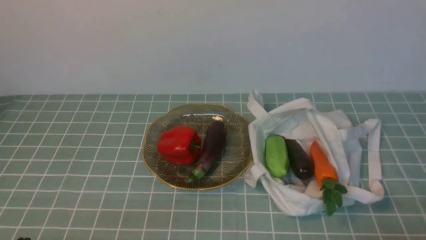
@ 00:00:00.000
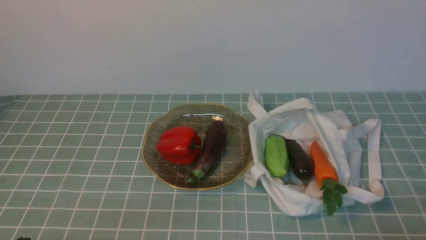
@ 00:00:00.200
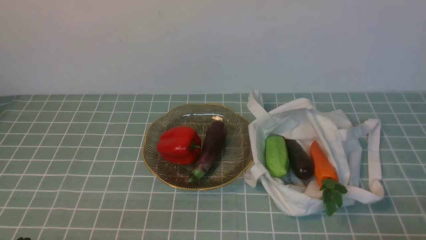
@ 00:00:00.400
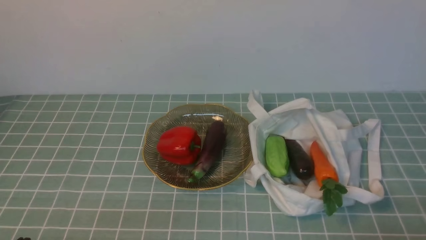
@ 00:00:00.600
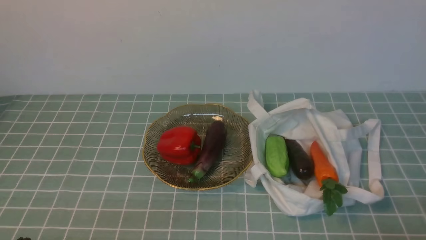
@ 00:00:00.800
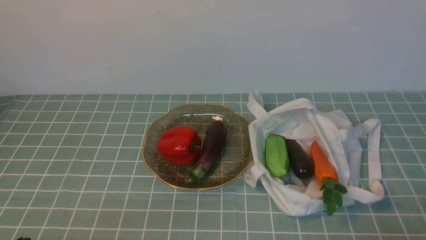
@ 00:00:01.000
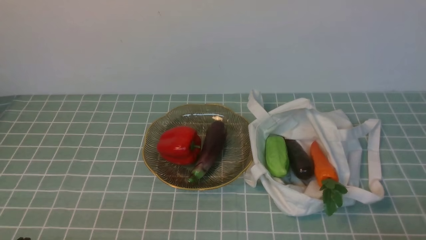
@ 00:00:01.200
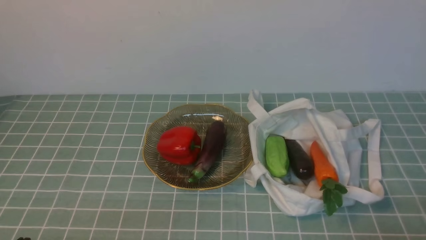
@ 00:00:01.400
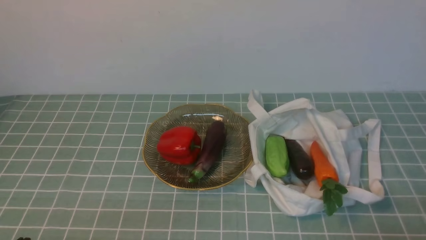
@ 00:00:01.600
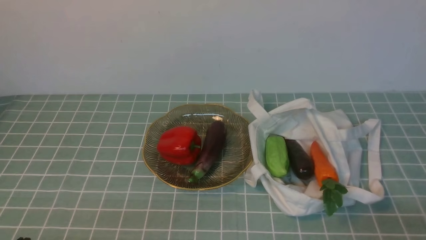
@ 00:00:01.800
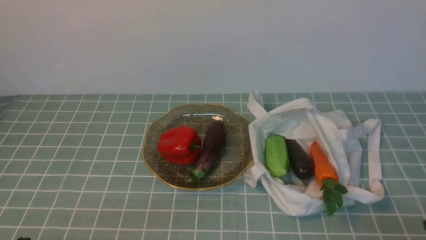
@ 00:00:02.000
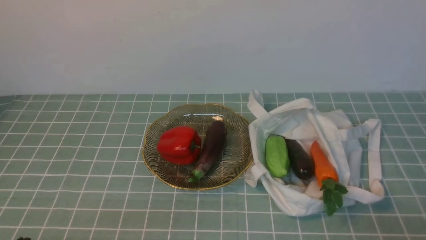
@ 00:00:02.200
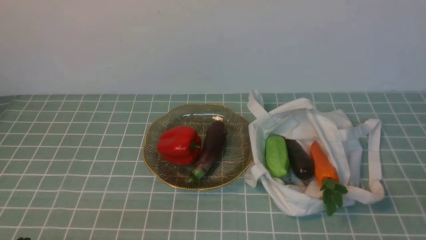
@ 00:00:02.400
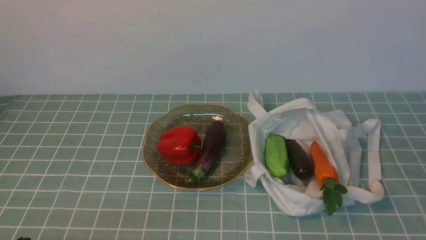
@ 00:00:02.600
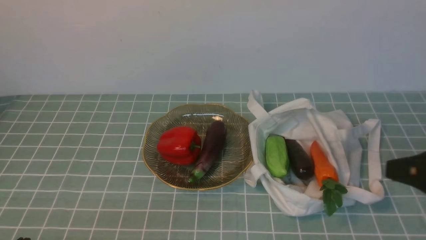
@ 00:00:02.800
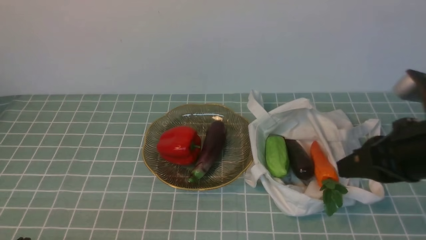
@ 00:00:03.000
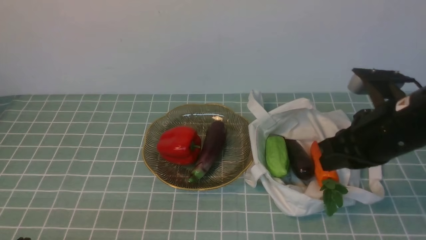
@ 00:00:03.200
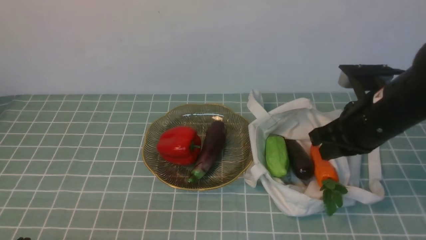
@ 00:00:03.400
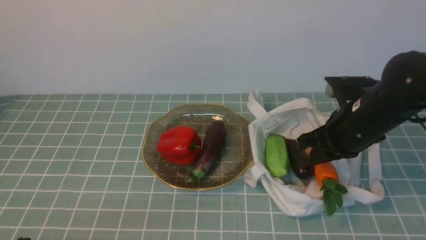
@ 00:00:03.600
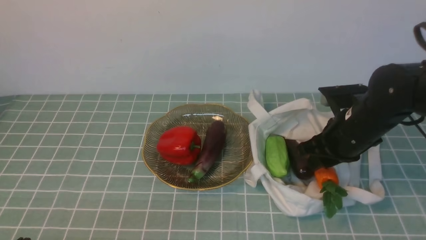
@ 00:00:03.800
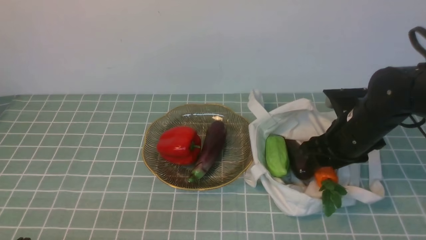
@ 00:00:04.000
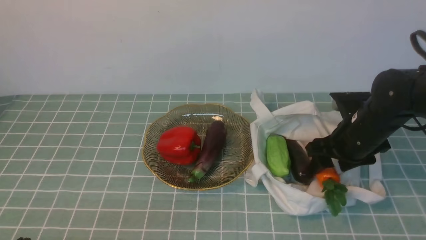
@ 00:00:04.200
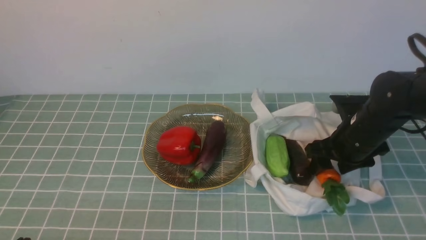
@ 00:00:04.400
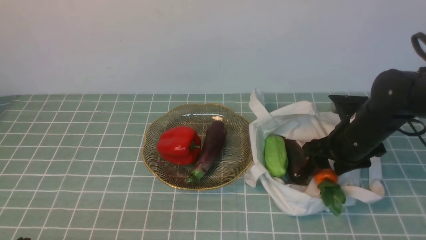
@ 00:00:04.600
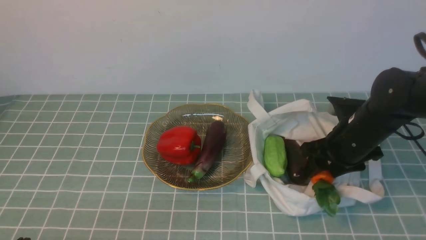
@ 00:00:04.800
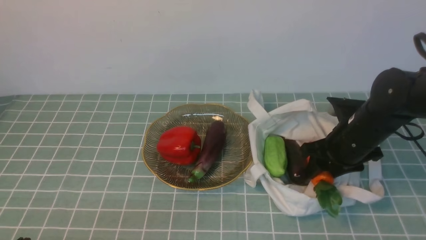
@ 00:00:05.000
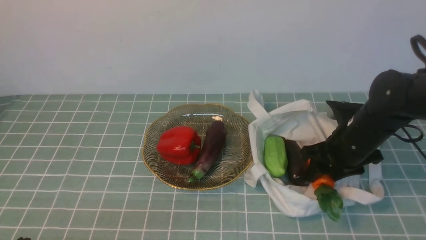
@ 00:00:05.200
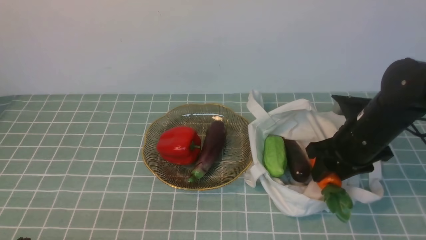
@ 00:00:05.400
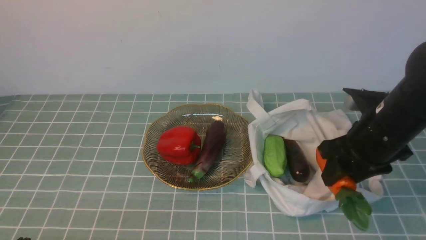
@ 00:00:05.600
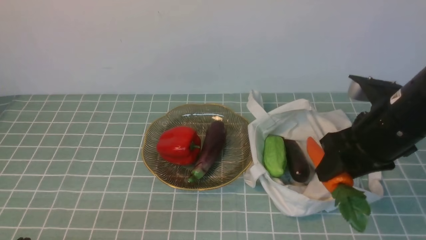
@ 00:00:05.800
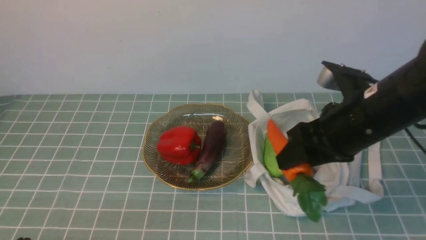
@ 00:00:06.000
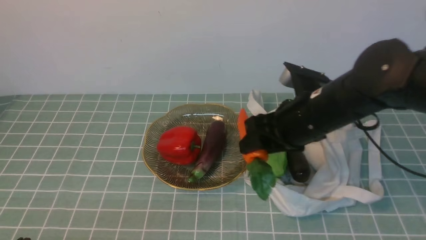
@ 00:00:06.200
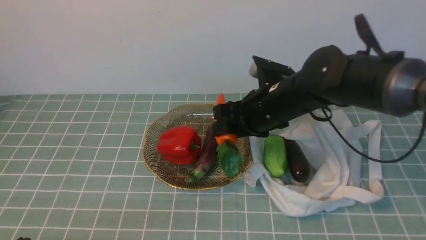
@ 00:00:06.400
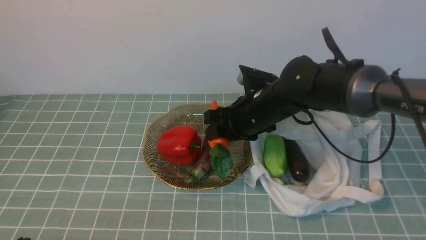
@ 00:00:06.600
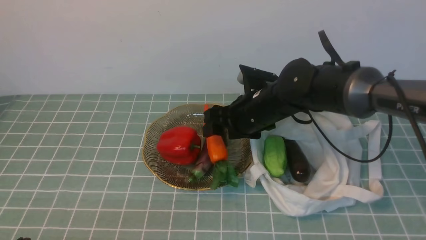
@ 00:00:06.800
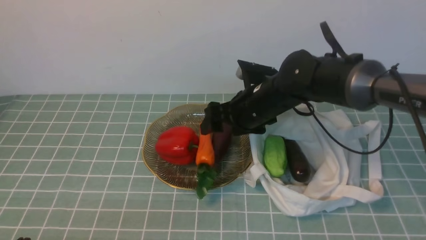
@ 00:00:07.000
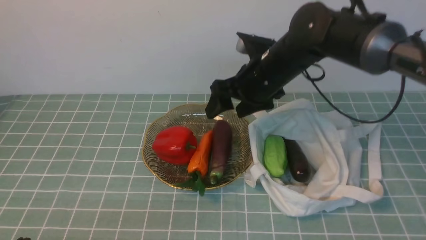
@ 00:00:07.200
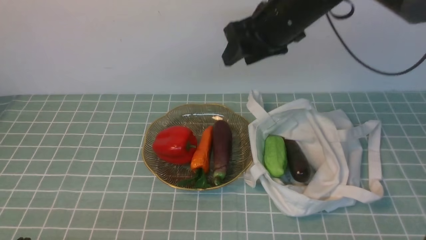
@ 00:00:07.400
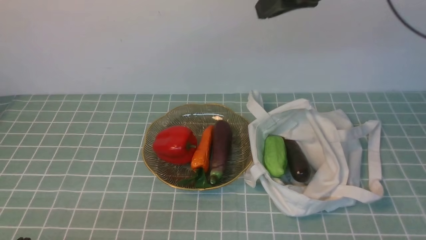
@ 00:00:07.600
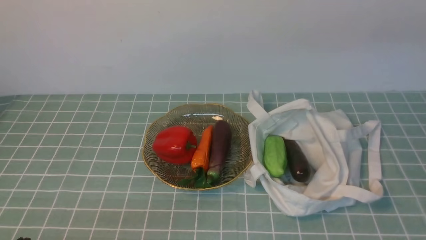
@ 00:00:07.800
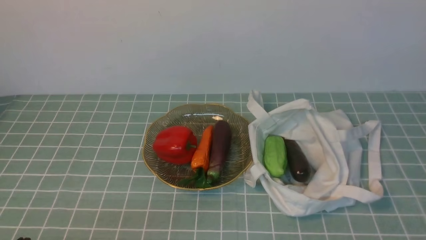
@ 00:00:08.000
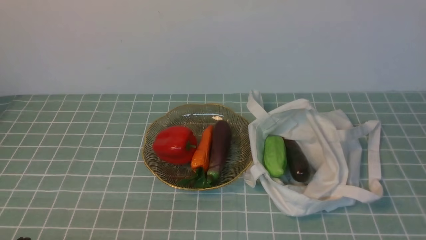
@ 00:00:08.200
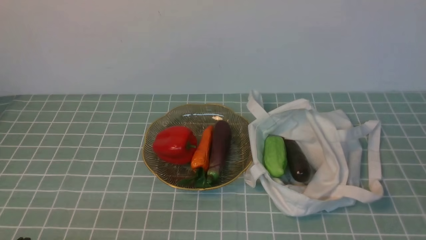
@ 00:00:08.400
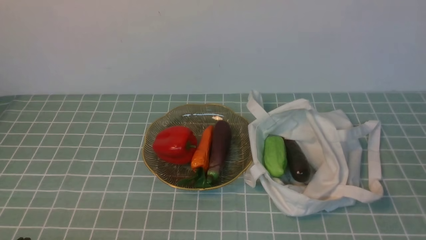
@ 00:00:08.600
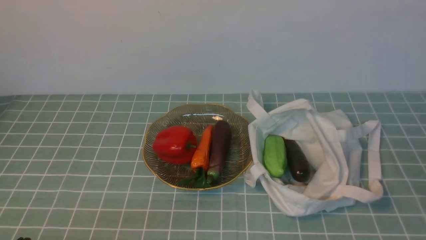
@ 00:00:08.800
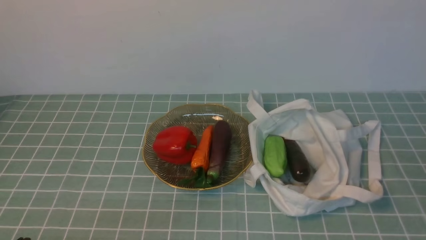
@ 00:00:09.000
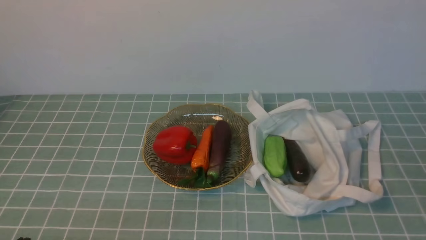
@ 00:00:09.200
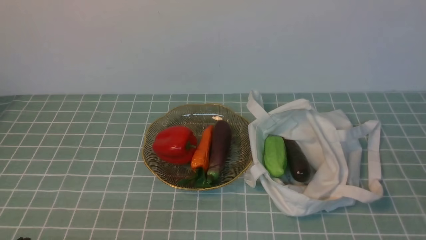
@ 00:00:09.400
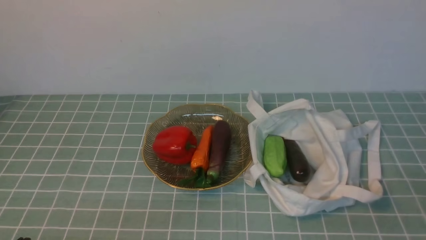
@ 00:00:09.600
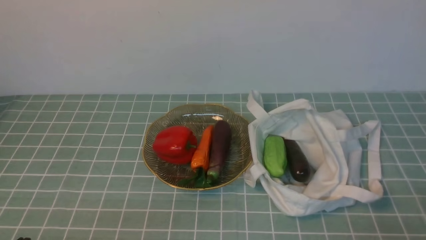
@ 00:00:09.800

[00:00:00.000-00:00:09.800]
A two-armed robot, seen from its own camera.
Task of the whole recording: take vegetables from cloth bag on blue coffee tablecloth place on plate.
Step, 00:00:00.000 to 00:00:04.800: Grasp the radish with right gripper.
Step, 00:00:05.000 to 00:00:07.200: Place the radish on the plate with right gripper.
00:00:01.400 to 00:00:02.800: The right gripper travels upward and forward by approximately 15 cm.
00:00:02.800 to 00:00:04.200: The right gripper moves forward and downward, about 25 cm, and opens.
00:00:04.200 to 00:00:05.600: The right gripper ends up some 5 cm from where it was.
00:00:05.600 to 00:00:07.000: The right gripper travels to the left and forward by approximately 15 cm, and opens up.
00:00:07.000 to 00:00:08.400: The right gripper moves backward, to the right and upward, some 40 cm, and closes.

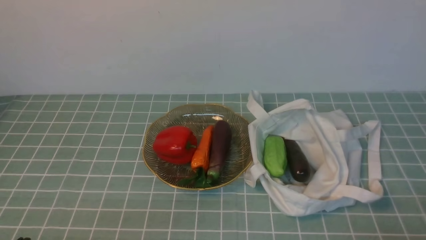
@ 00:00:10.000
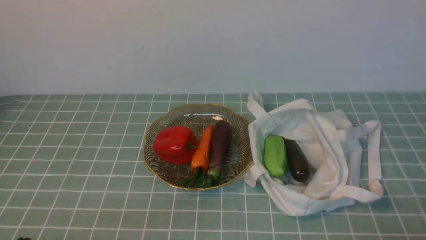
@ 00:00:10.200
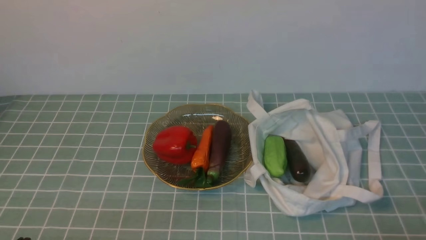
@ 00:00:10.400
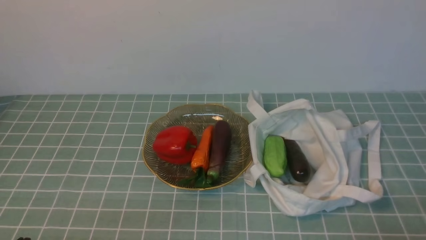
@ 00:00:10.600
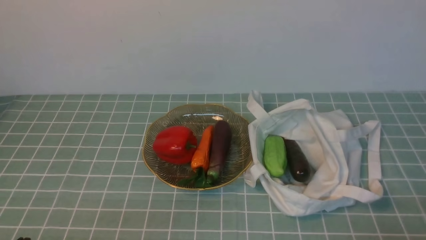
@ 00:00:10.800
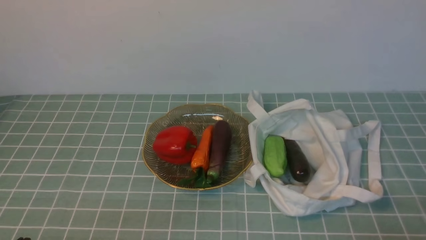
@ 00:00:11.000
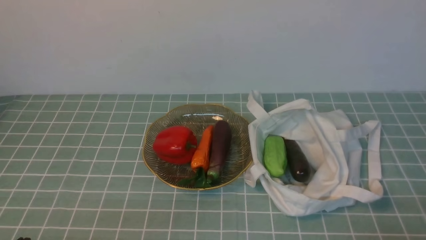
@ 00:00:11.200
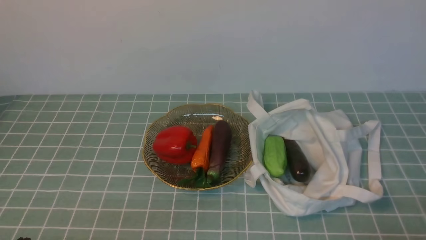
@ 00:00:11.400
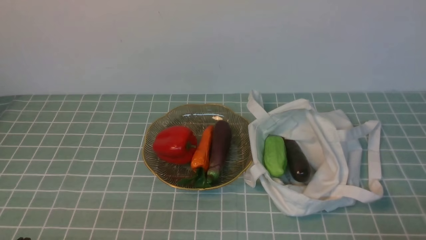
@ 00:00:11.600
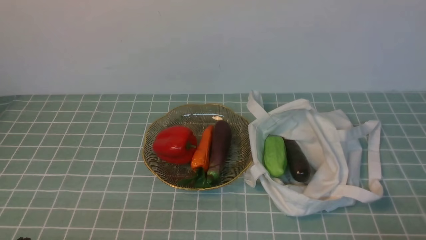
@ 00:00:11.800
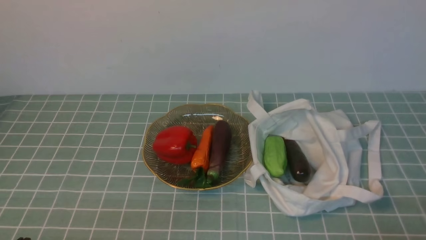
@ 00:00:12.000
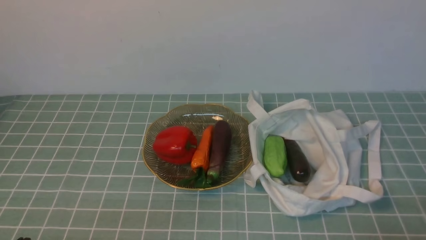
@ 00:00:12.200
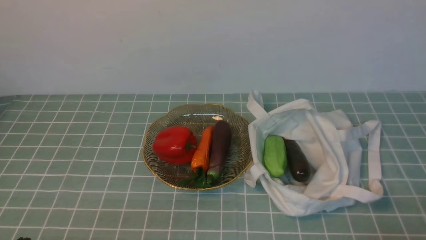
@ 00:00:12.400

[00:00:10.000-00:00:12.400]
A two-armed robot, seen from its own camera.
Task of the whole recording: take vegetables from cloth bag on blue coffee tablecloth place on plate.
00:00:10.000 to 00:00:12.400: The two grippers keep their place.
